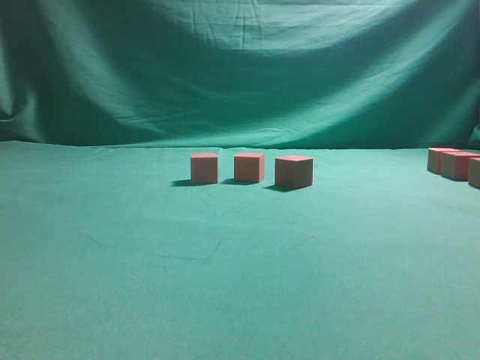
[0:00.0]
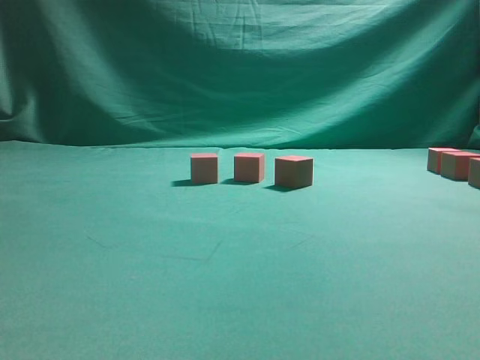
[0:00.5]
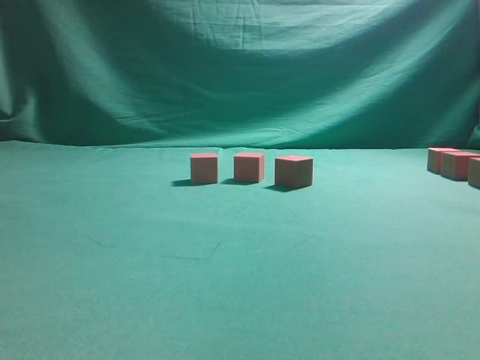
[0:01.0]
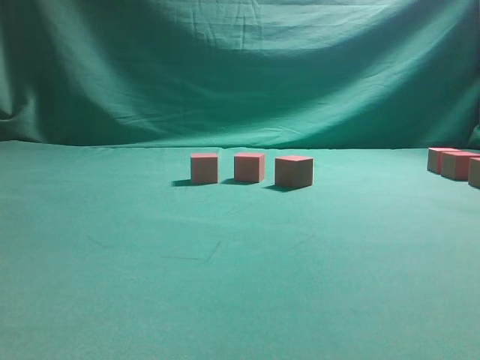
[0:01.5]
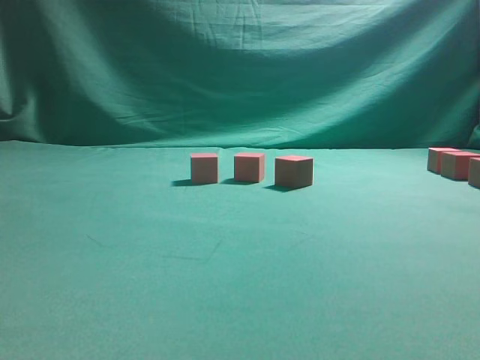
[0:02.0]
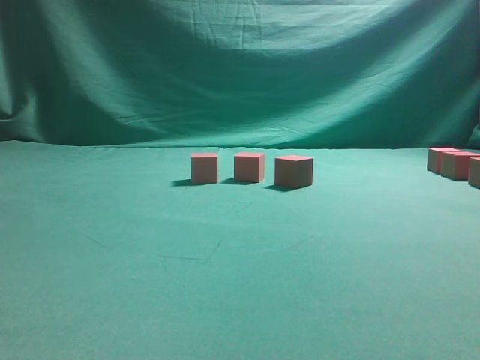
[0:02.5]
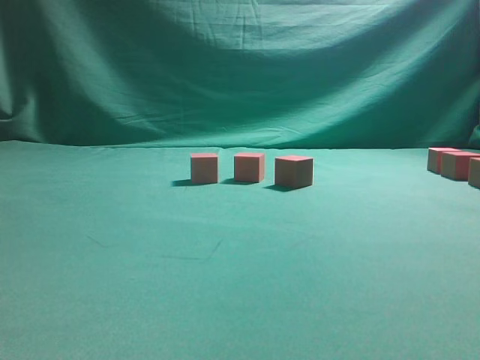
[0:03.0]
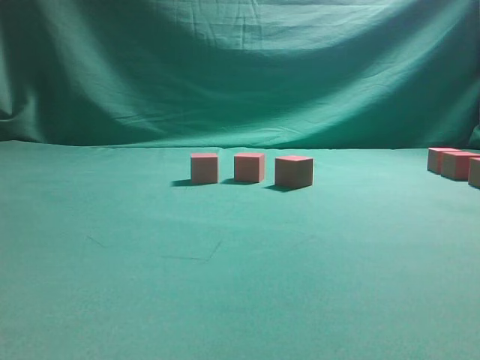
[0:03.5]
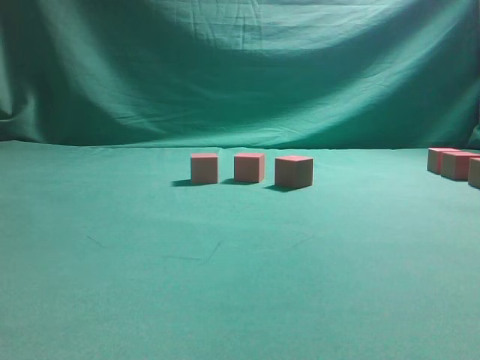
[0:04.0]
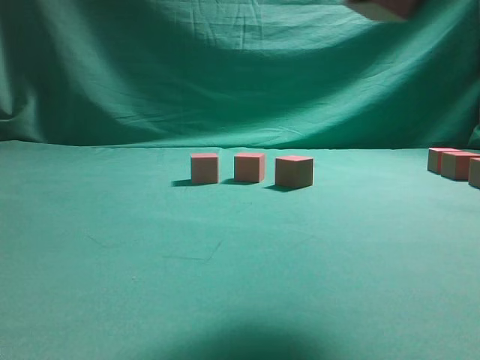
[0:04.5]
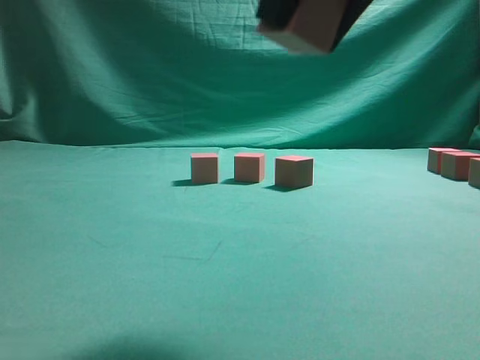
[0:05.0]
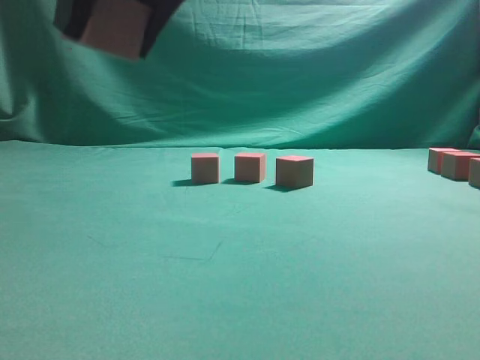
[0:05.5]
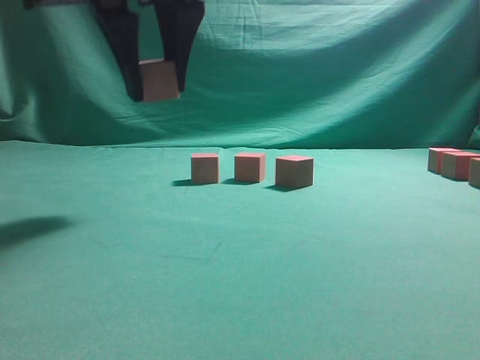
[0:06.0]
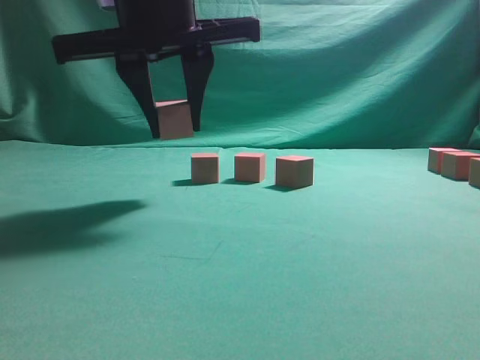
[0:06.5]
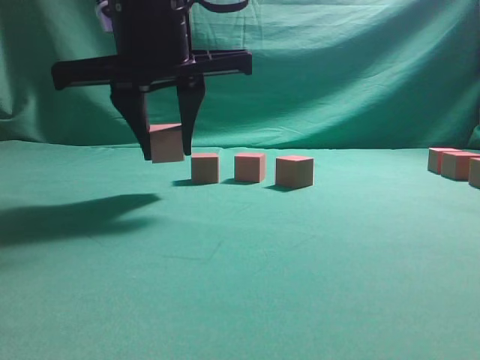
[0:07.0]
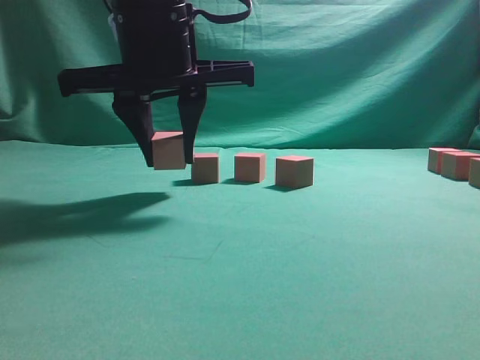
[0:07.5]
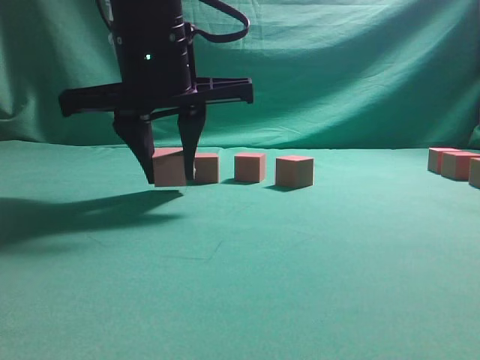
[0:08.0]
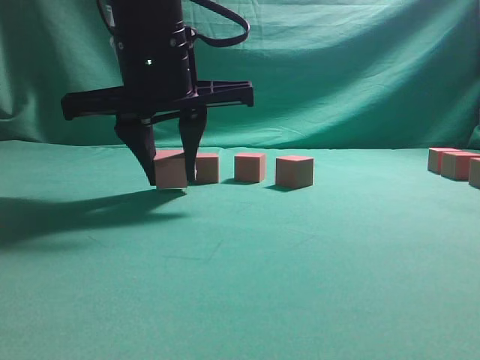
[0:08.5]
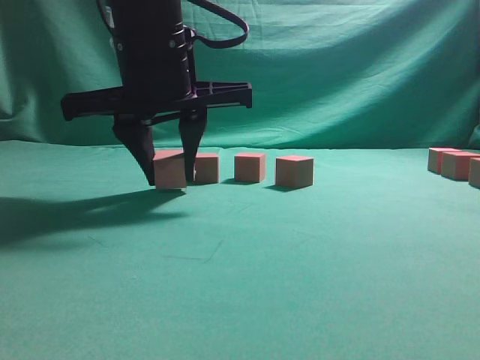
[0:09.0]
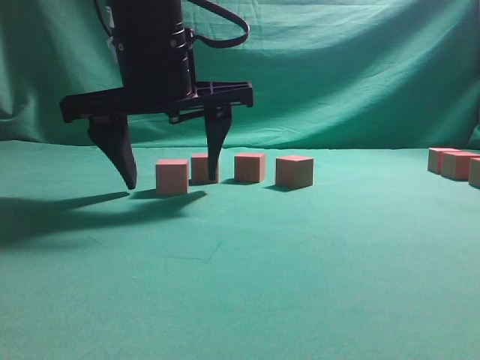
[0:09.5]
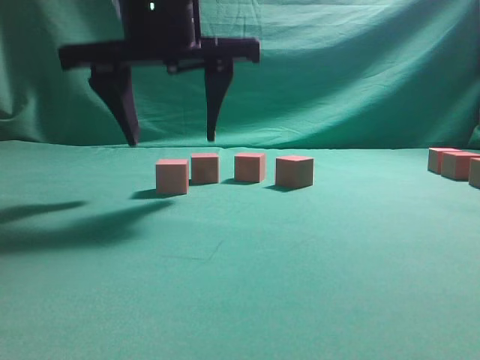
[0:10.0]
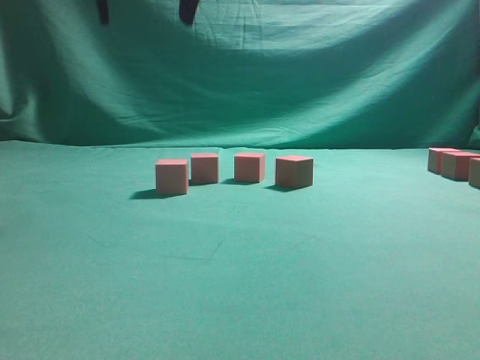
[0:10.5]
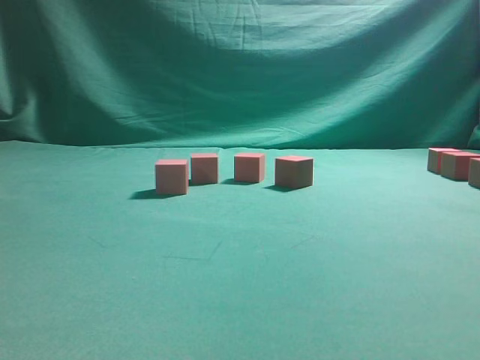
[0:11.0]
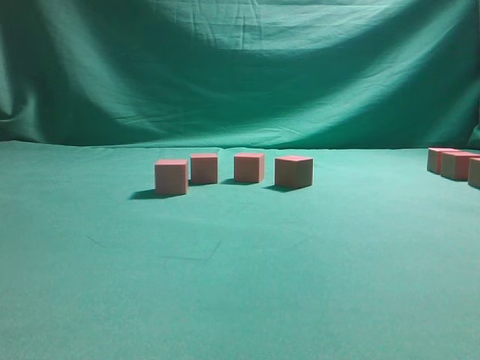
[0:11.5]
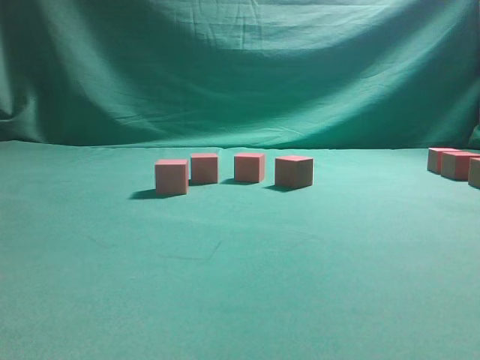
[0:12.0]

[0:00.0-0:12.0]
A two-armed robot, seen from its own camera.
Task of the whole recording: pick up the multiple cubes in two columns one by one and place them in another position on the table.
Step, 0:04.0 to 0:10.0: Place the block at the correct position to assemble the letter S.
0:04.0 to 0:06.0: The right gripper moves to the left, roughly 35 cm.
0:06.0 to 0:08.0: The right gripper moves downward, some 10 cm.
0:08.0 to 0:10.0: The right gripper opens.
0:10.0 to 0:12.0: The right gripper moves to the right, about 30 cm.

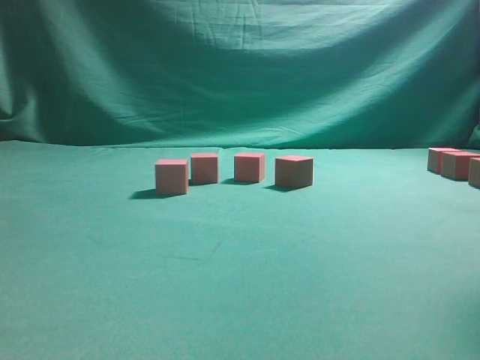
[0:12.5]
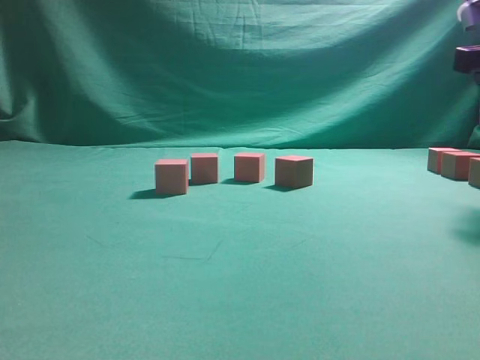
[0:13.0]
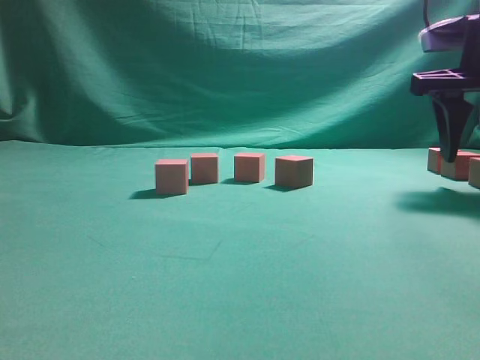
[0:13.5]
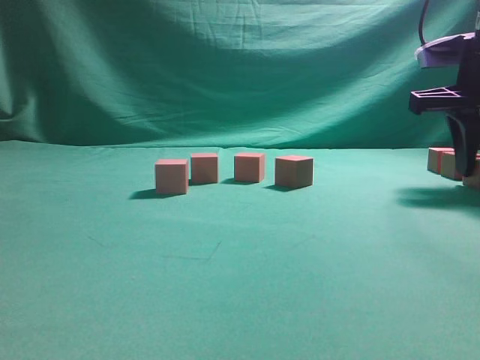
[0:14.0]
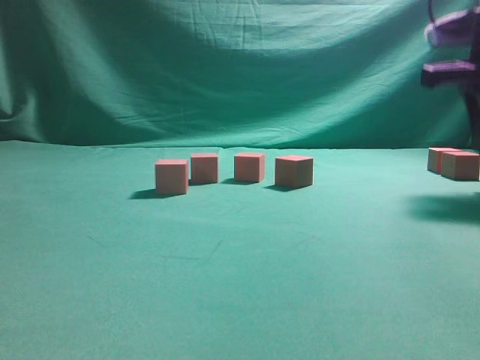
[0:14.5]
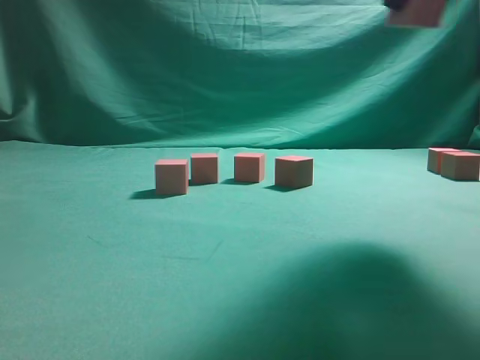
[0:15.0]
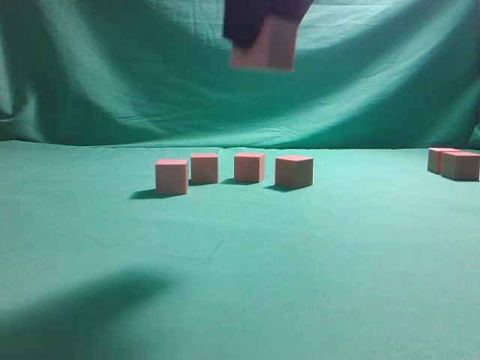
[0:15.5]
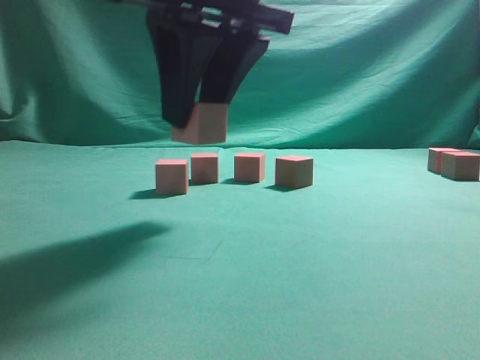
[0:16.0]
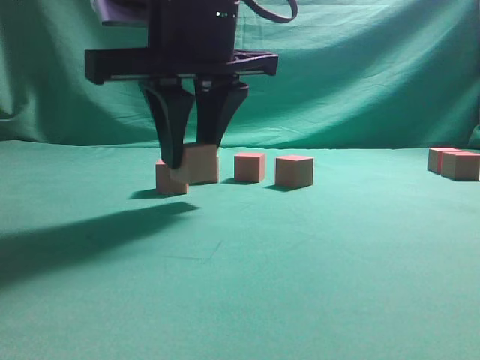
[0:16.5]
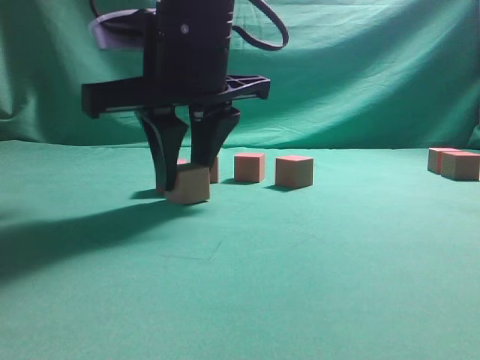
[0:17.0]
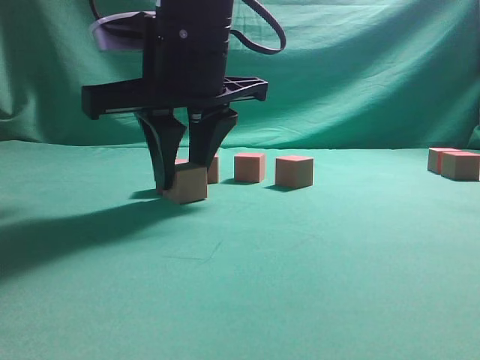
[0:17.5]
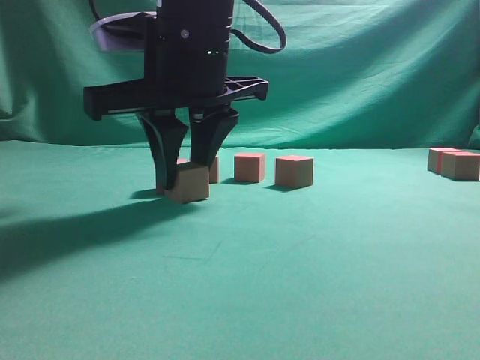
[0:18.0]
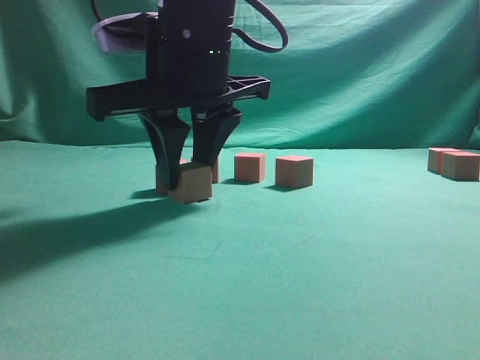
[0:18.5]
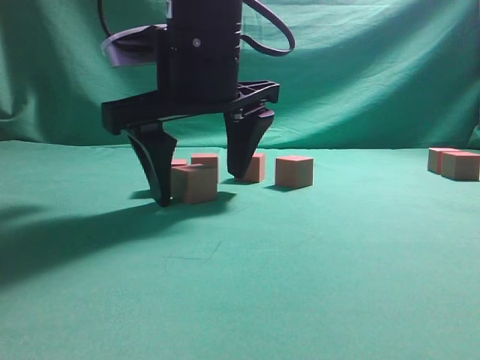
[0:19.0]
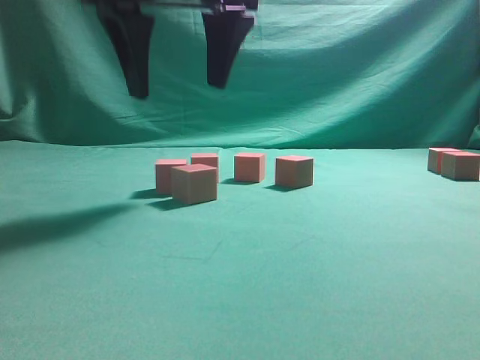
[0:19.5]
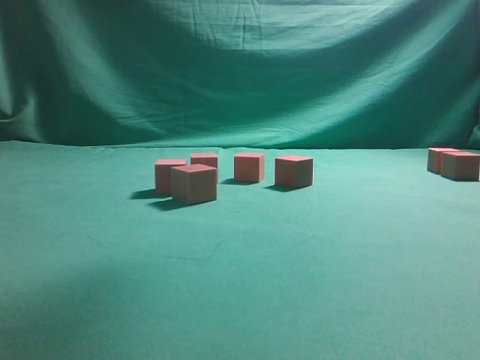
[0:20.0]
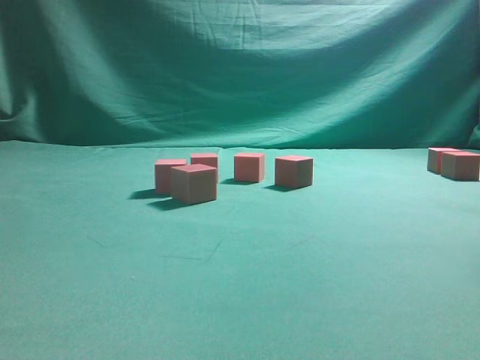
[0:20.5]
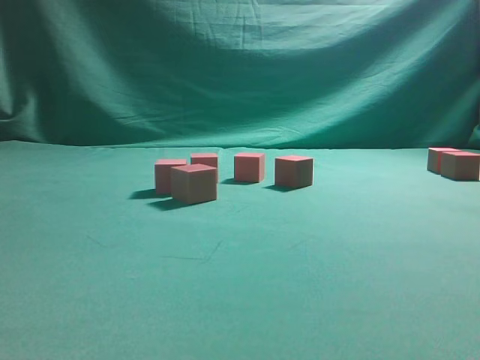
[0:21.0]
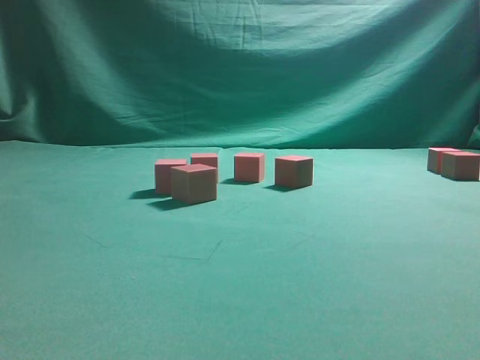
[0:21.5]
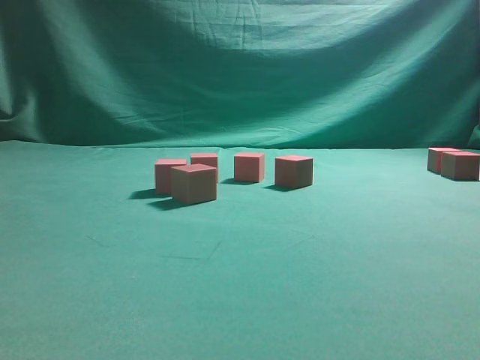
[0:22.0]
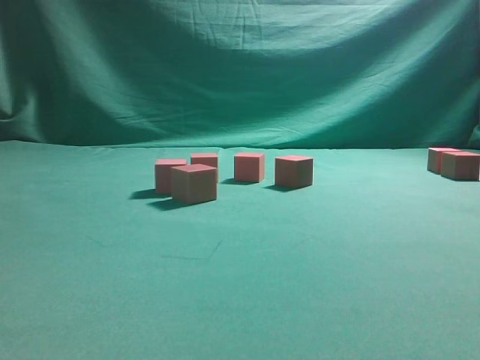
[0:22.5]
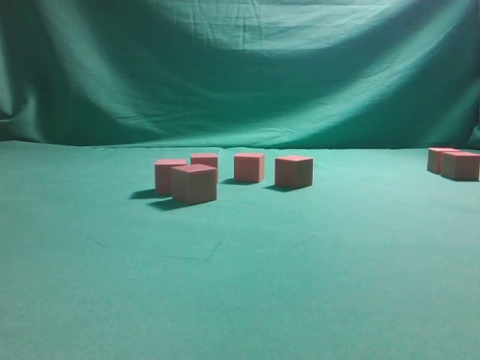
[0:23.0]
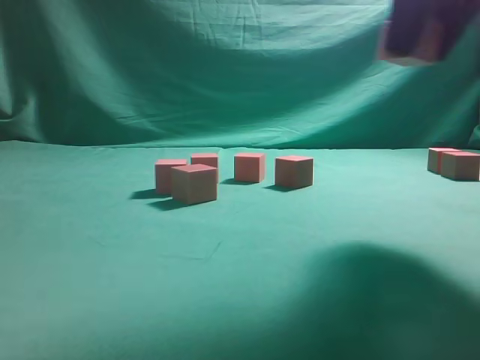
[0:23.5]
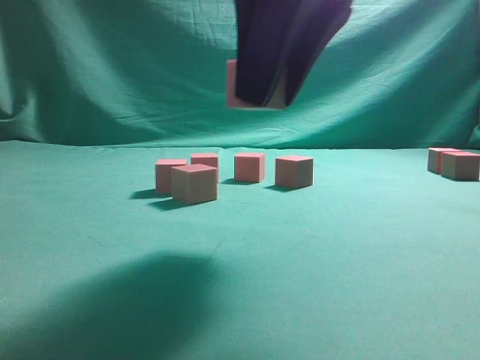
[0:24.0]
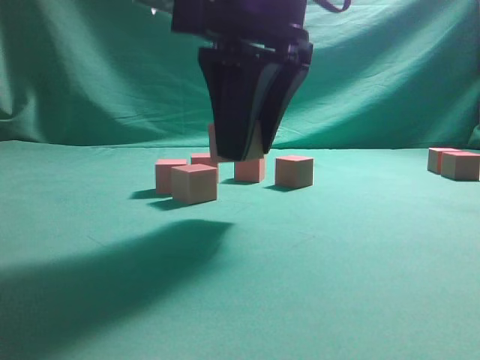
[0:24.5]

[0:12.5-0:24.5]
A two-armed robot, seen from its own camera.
Task of the whole recording: pick up the multiple cubes in two columns one by one and place them in another position on the table.
Step, 0:15.0 to 0:19.0: Place the block at the correct position to assemble the letter S.
Step, 0:20.0 to 0:22.5: Pick up the block on the table.
0:12.5 to 0:14.5: The right gripper goes some 10 cm forward and downward, and closes its fingers.
0:14.5 to 0:16.5: The right gripper travels to the left by about 30 cm.
0:16.5 to 0:18.5: The grippers stay close to where they were, moving slightly.
0:18.5 to 0:20.5: The right gripper is displaced to the right and upward by some 35 cm, and opens up.
0:22.5 to 0:24.5: The right gripper shifts approximately 30 cm to the left.

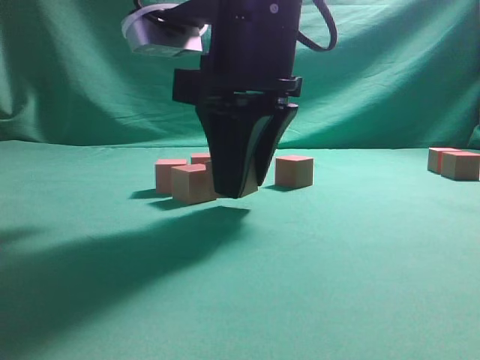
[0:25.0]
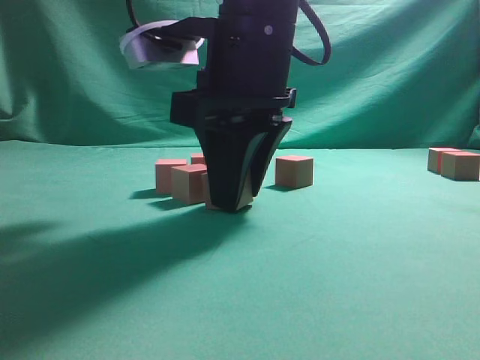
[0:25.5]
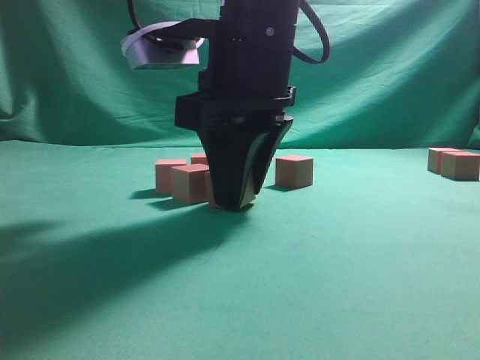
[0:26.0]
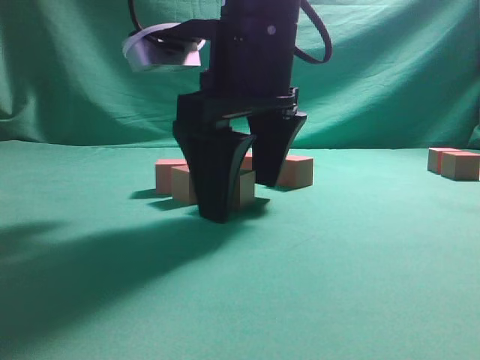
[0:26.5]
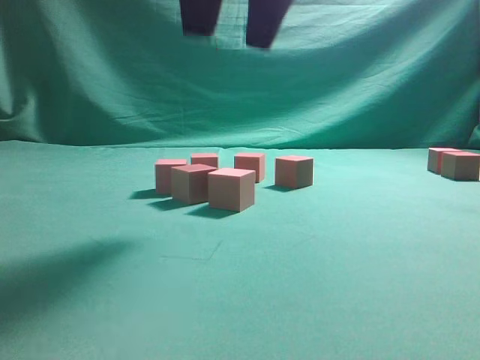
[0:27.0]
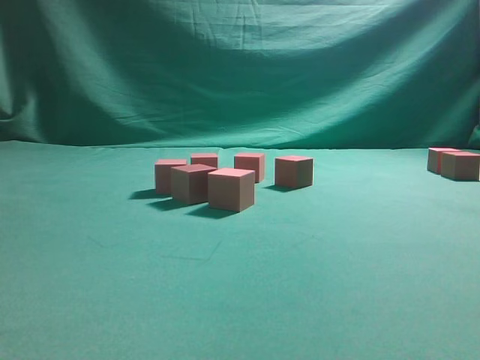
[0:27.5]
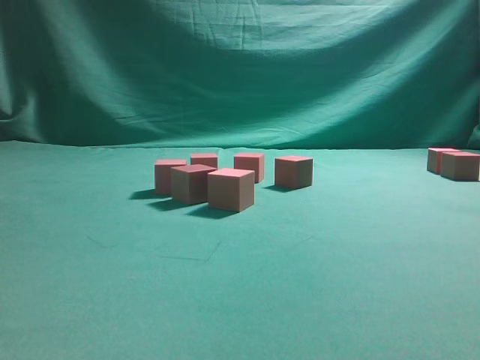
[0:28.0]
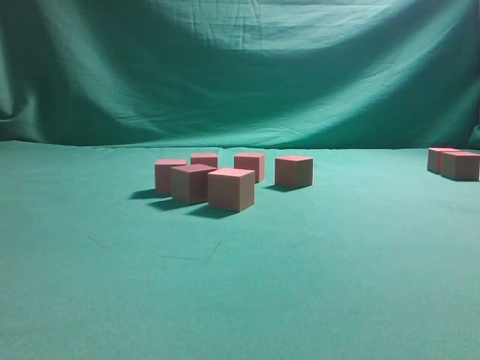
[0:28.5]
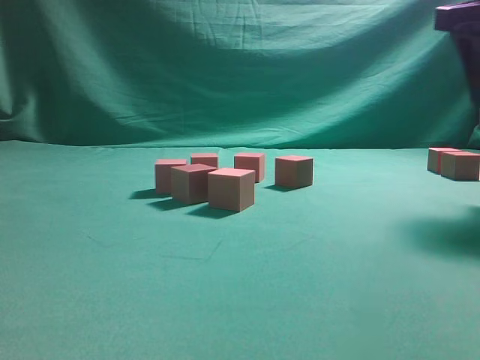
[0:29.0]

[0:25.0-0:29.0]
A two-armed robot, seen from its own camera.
Task of the whole recording: pick up the multiple cubes in two columns one by one and place them in another position on the table.
0:25.0 to 0:27.0: The right gripper heads upward, covering roughly 10 cm, and opens.
0:27.0 to 0:29.0: The right gripper goes some 20 cm to the right.
